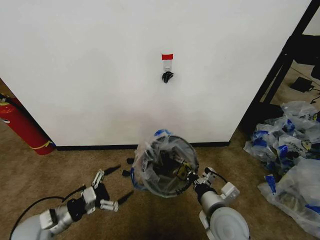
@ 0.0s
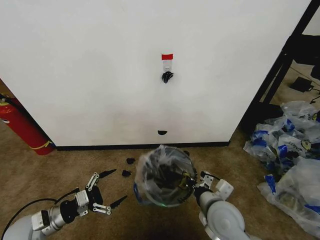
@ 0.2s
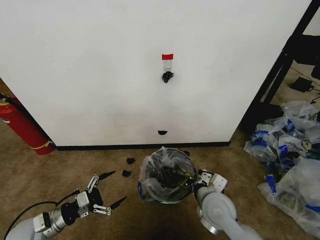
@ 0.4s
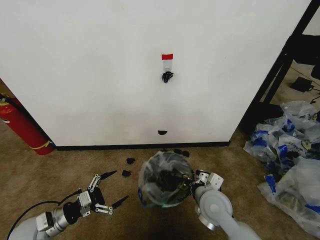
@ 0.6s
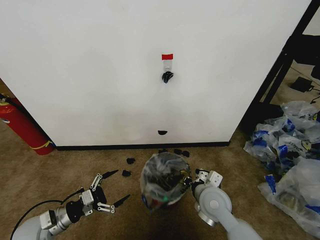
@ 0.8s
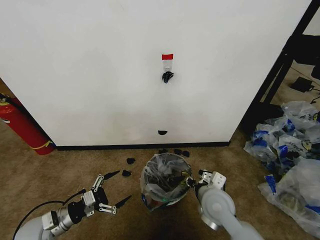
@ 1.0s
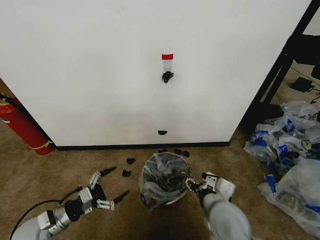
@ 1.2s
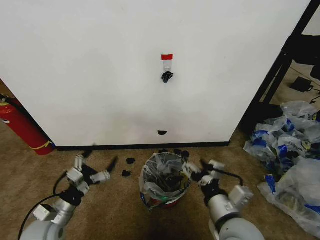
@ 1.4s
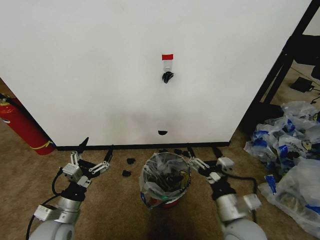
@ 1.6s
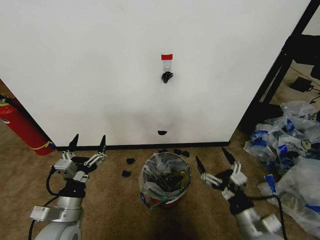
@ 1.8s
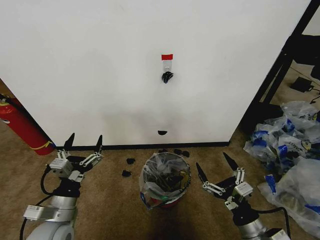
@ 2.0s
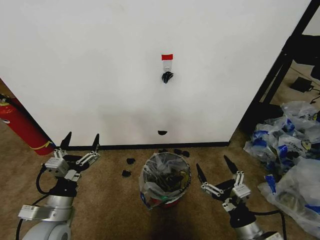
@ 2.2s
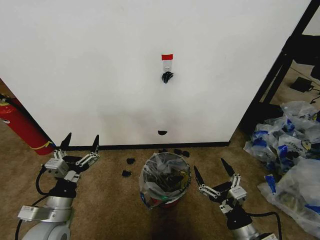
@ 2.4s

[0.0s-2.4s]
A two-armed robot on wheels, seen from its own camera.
Task of the whole recording: Pick up the garbage bag from the wall and place it over the trash bin.
0.0s to 1.2s: The right gripper reaches some 5 cm forward, then returns, and opens.
1.2s to 2.4s: The left gripper shifts roughly 10 cm to the right and upward; the right gripper is displaced downward, to the right and backward by about 15 cm.
